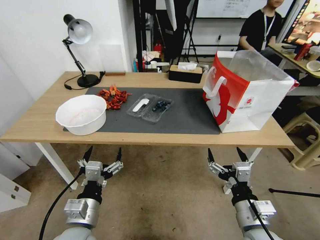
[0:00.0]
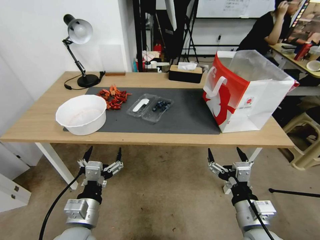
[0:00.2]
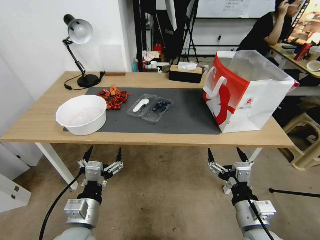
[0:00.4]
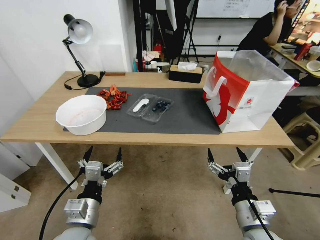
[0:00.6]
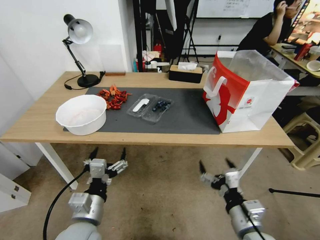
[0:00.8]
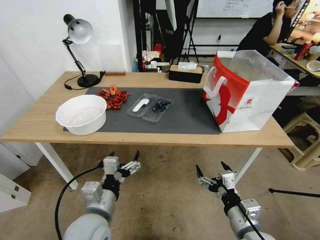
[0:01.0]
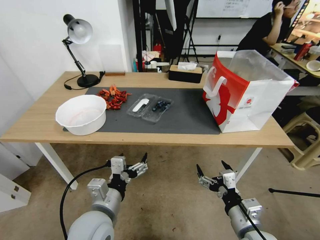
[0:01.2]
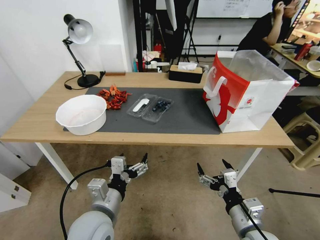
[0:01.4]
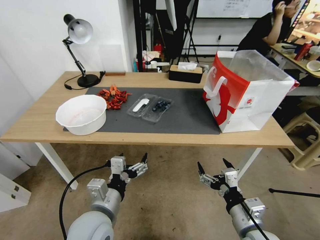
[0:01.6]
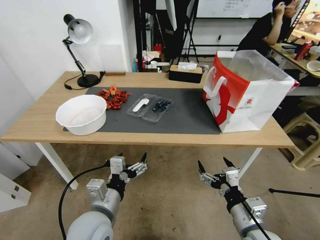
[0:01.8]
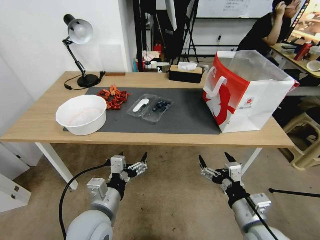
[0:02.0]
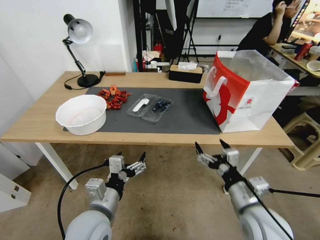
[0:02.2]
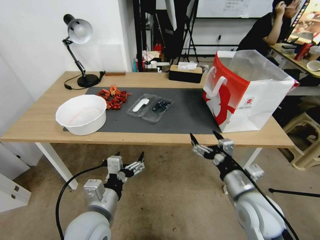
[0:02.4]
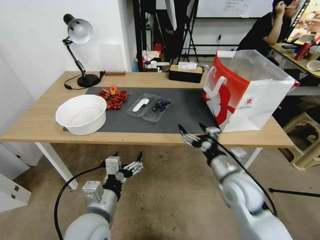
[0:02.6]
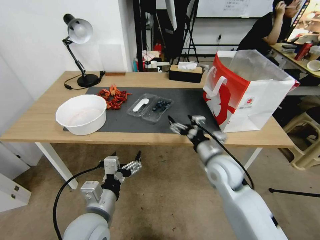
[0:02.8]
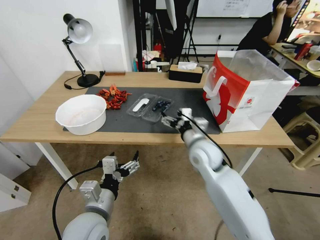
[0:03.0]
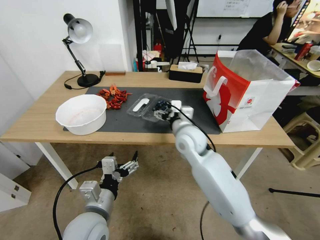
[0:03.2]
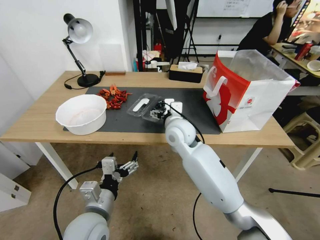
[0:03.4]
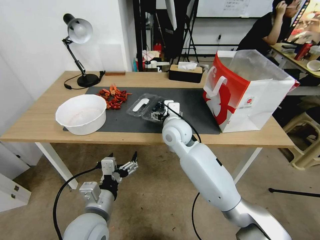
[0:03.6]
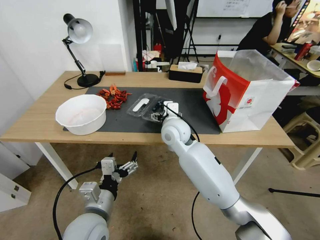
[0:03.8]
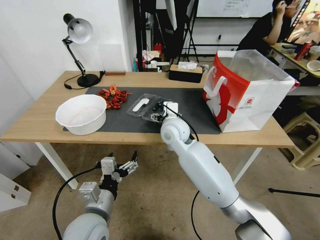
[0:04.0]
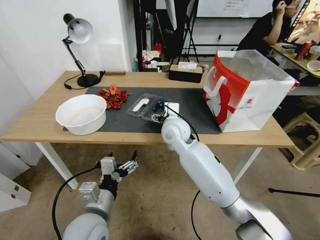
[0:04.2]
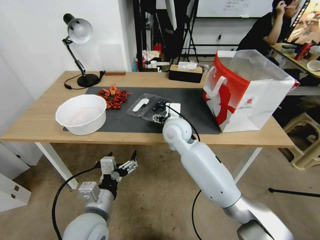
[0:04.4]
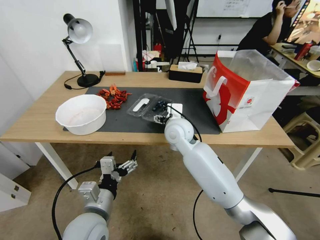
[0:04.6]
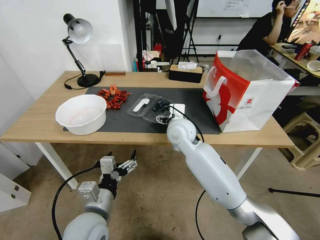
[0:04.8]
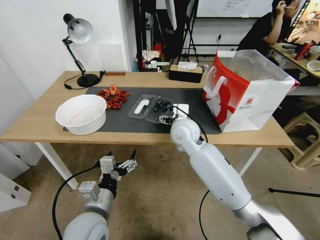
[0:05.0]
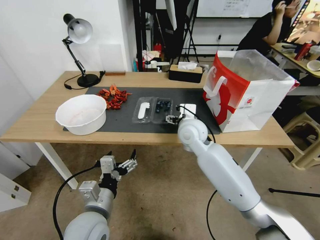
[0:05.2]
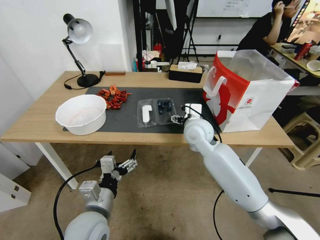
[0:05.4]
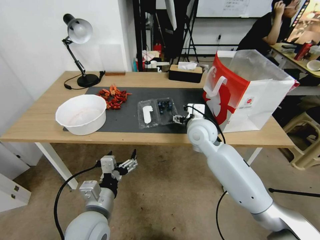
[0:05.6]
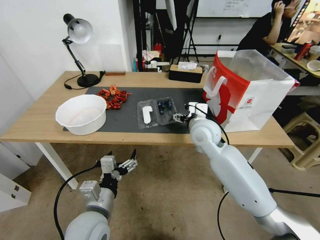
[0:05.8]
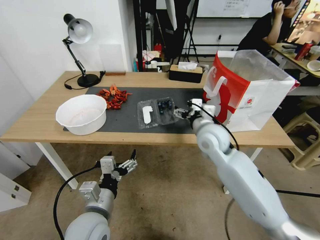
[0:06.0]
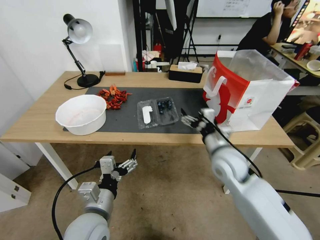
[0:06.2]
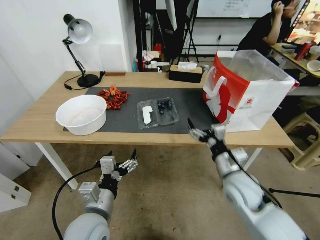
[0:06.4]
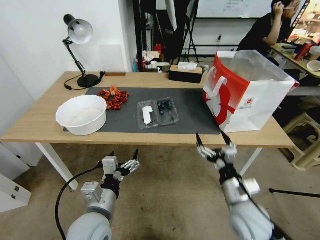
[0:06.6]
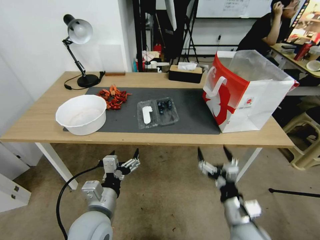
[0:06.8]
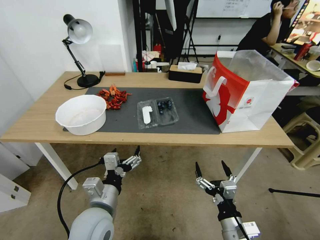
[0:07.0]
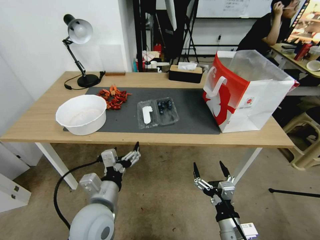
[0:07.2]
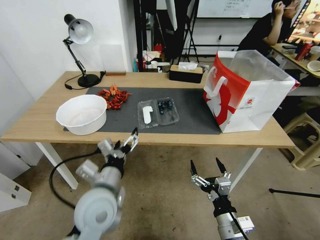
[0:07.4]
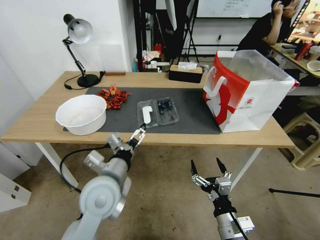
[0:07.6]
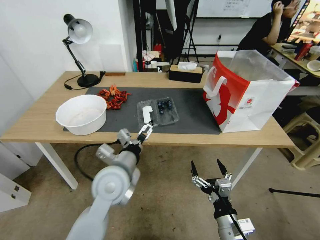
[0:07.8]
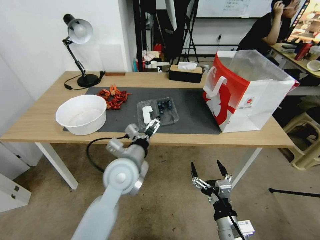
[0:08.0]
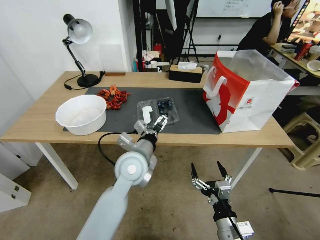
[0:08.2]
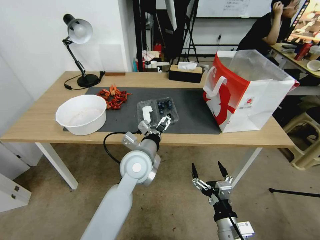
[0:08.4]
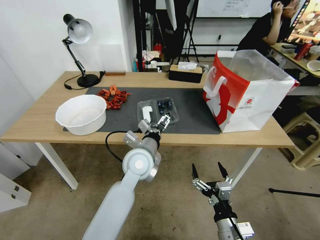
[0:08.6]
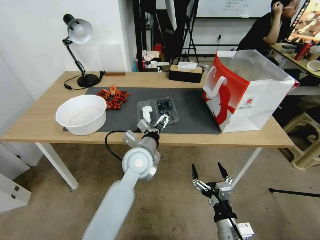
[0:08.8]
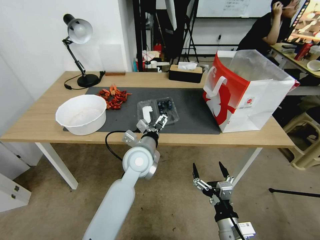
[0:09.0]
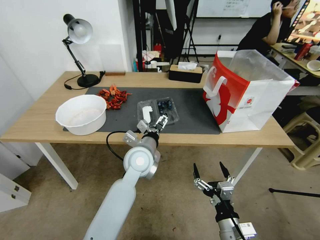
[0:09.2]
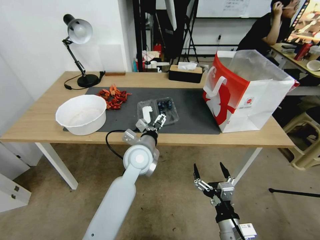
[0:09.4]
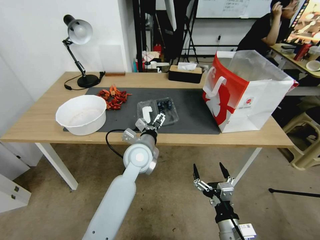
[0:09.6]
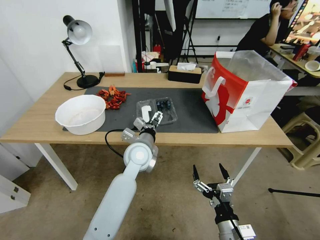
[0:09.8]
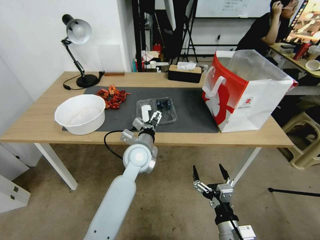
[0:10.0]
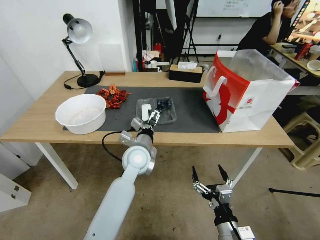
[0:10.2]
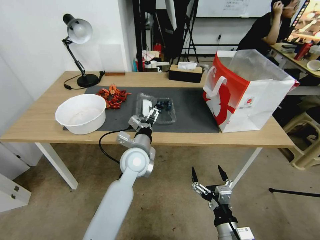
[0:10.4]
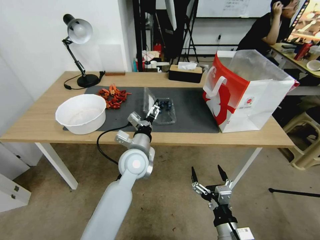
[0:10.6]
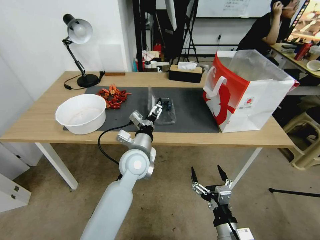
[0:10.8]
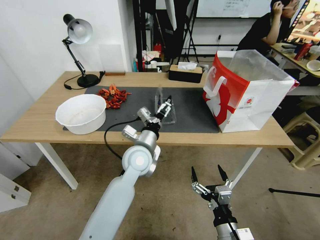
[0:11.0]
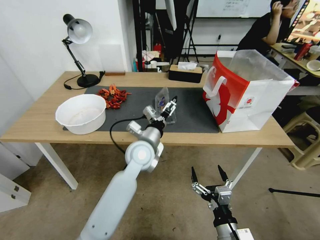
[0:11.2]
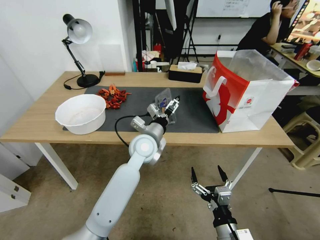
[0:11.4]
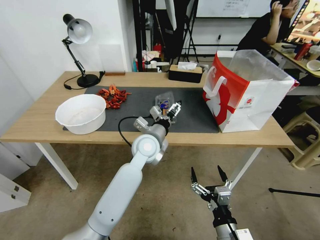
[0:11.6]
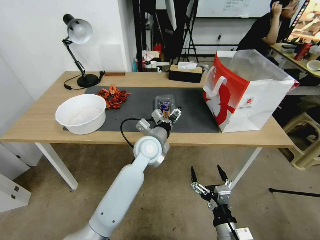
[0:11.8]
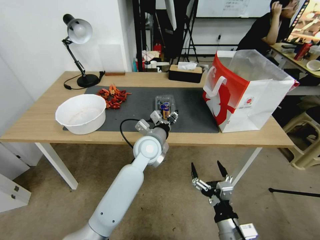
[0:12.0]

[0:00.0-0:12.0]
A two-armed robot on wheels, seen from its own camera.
Task of the whole recording: Close the takeout container lid, then place the container into the takeout bag.
1.6 to 3.0 s: The right gripper travels forward and to the left by about 25 cm.
3.0 to 4.4 s: The right gripper moves to the left and forward, roughly 10 cm.
4.4 to 6.0 s: The right gripper is displaced to the right by about 10 cm.
6.0 to 7.6 s: The left gripper is displaced forward and upward by approximately 10 cm, while the right gripper goes roughly 30 cm backward and downward.
7.6 to 9.0 s: The left gripper is displaced forward and to the right by approximately 15 cm.
9.0 to 10.4 s: The grippers make only small movements.
10.4 to 12.0 s: The left gripper changes place by roughly 5 cm, and closes its fingers.

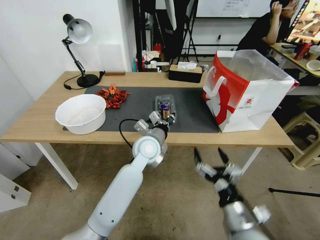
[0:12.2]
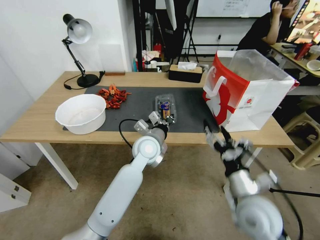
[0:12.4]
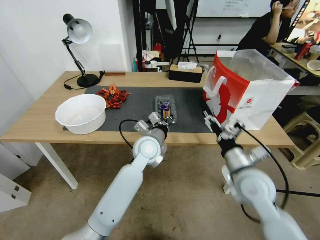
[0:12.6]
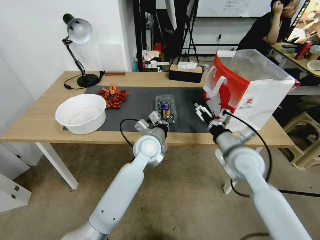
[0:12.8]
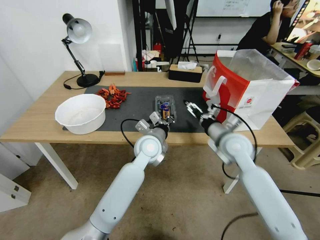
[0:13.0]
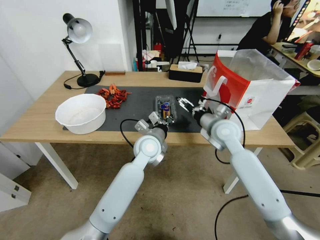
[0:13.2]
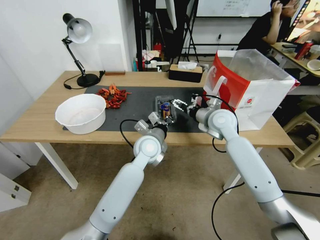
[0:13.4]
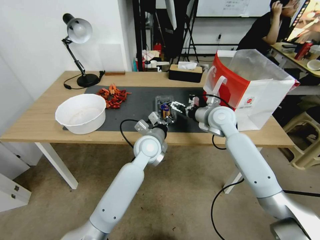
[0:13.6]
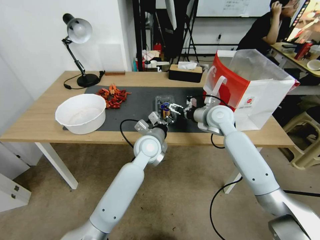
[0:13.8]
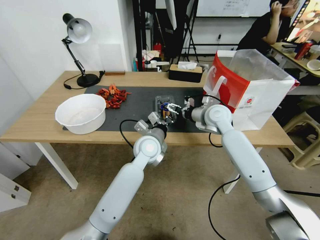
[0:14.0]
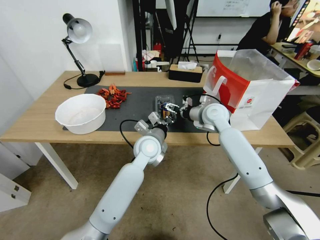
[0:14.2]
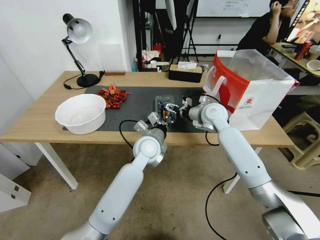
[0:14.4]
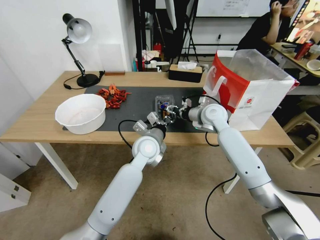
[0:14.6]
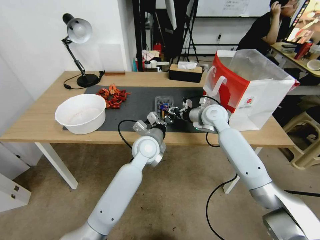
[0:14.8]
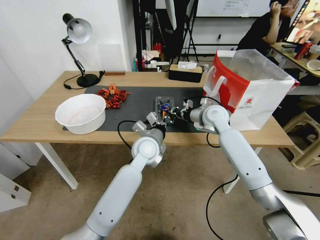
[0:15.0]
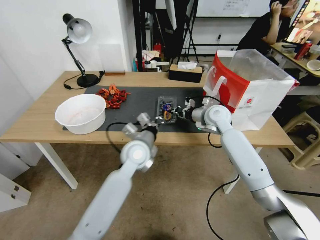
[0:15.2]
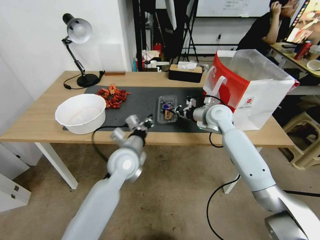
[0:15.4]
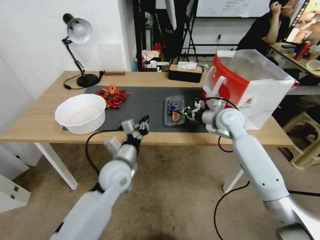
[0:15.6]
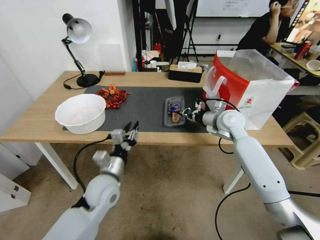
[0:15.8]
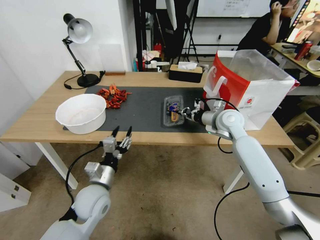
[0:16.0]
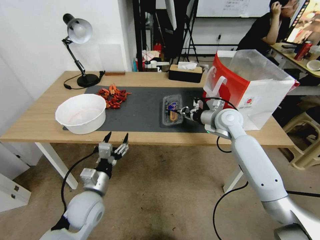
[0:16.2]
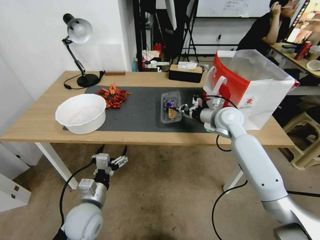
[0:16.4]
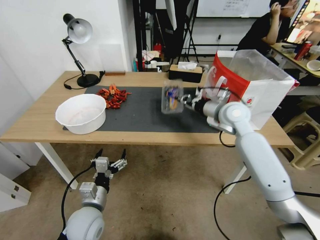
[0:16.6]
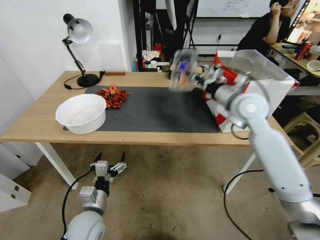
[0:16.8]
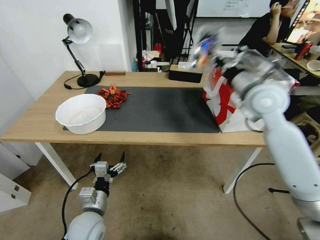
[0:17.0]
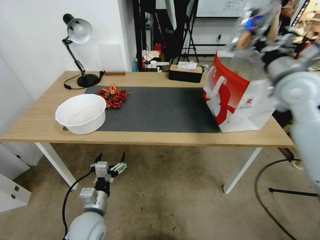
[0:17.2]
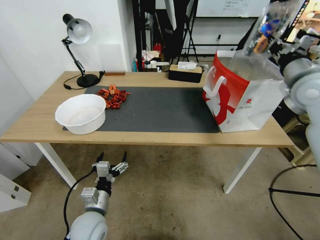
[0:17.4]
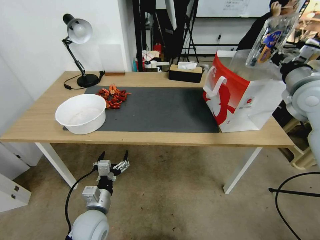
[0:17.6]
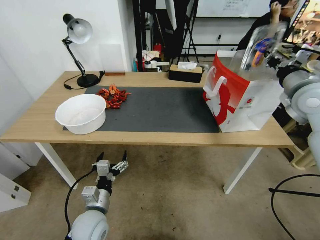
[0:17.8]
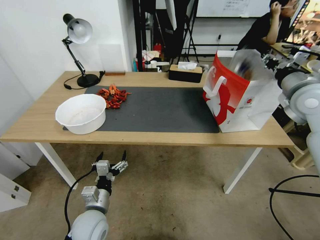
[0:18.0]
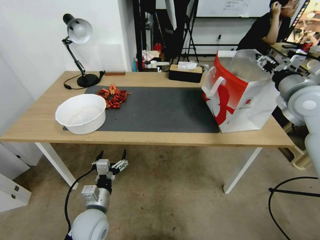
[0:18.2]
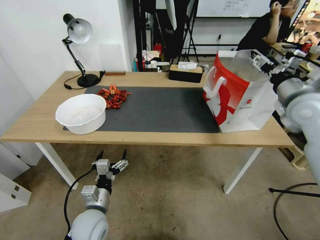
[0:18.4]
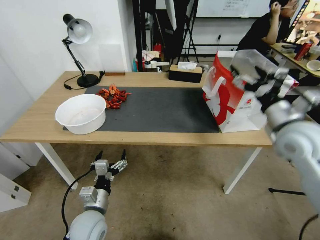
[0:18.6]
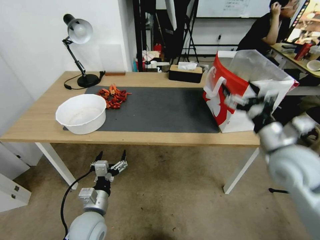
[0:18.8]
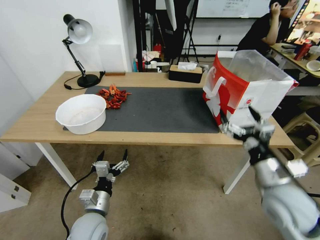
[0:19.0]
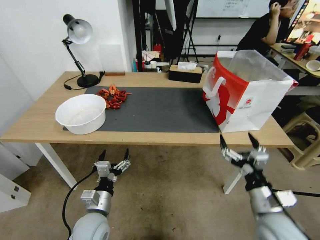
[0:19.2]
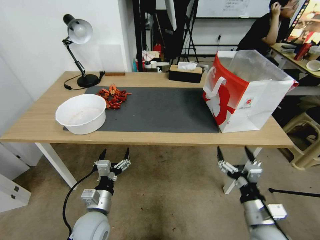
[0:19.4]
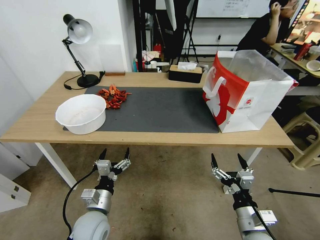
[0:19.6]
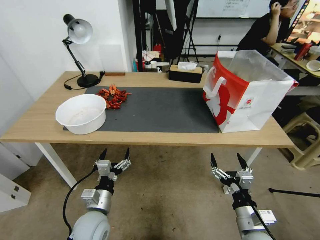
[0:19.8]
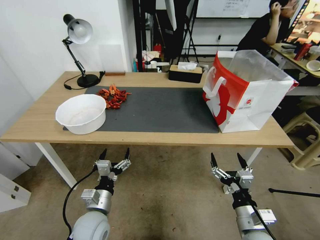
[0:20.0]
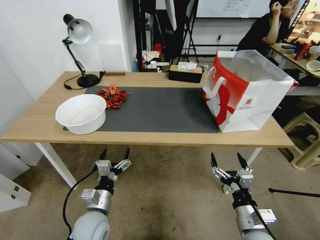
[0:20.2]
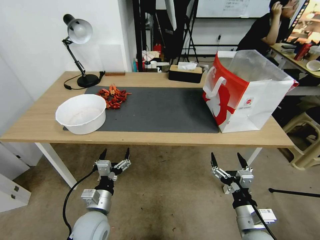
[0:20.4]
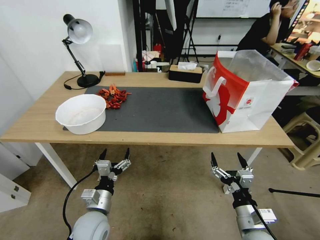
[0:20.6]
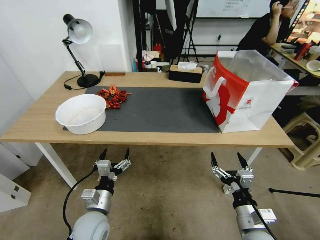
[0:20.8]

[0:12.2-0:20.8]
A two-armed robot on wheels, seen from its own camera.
Task of the whole recording: Close the takeout container lid, then place the container into the takeout bag.
12.2 to 13.6 s: The right gripper is displaced forward by about 35 cm.
13.6 to 15.0 s: The right gripper closes its fingers.
15.0 to 16.6 s: The right gripper heads upward, covering some 5 cm; the left gripper heads backward, to the left and downward, covering about 30 cm, and opens up.
16.6 to 18.0 s: The right gripper heads to the right, upward and backward, covering roughly 20 cm.
18.0 to 19.4 s: The right gripper moves downward and backward, approximately 40 cm, and opens.
19.4 to 20.8 s: The grippers move only a little.

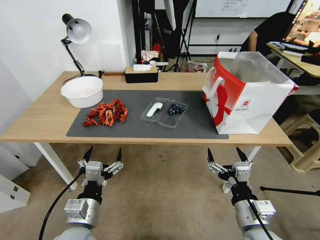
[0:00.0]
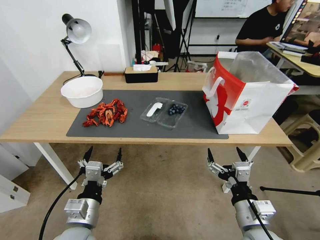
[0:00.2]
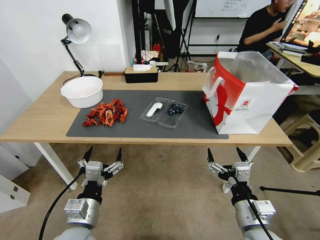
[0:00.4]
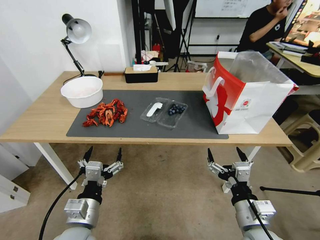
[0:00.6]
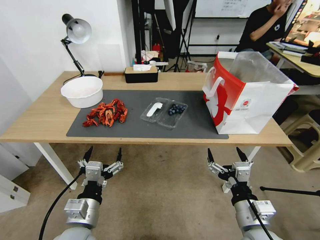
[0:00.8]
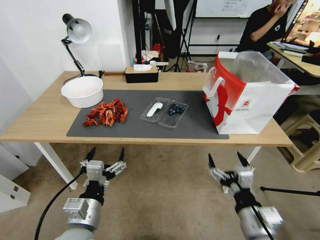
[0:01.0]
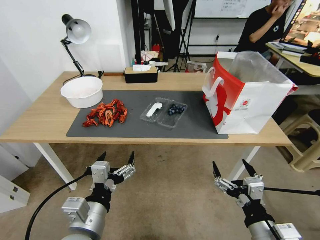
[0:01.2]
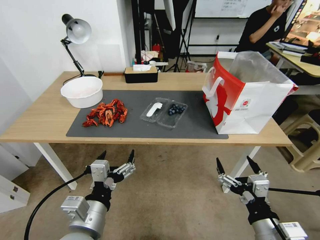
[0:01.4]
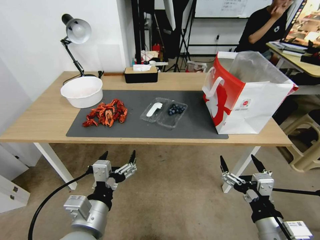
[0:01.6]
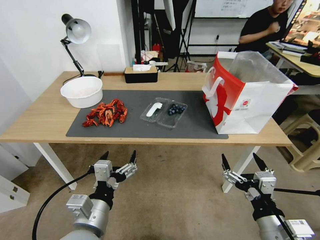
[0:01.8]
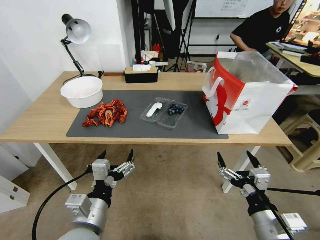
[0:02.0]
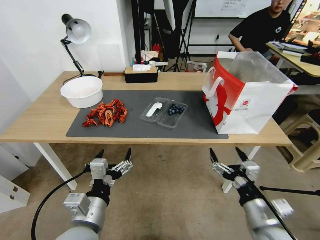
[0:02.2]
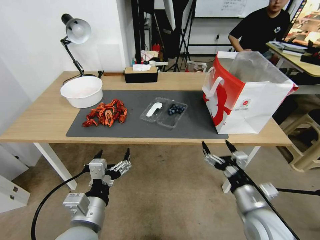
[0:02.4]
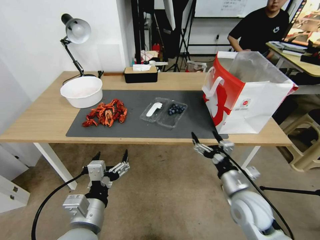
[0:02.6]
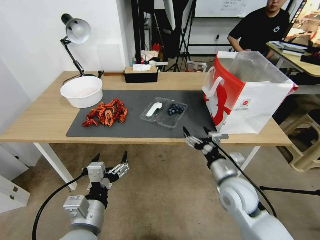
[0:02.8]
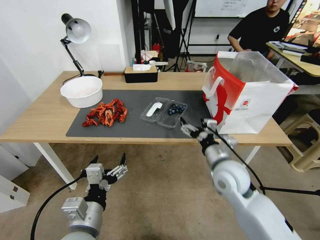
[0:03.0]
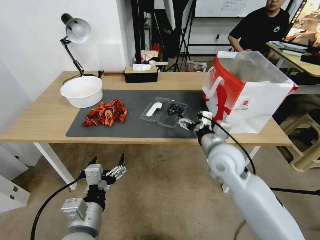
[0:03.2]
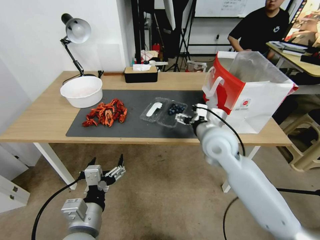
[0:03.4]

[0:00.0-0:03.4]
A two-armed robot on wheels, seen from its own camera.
Task of the whole recording: Close the takeout container lid, then place the container into the takeout bag.
1.6 to 3.4 s: The right gripper shifts about 25 cm forward.
